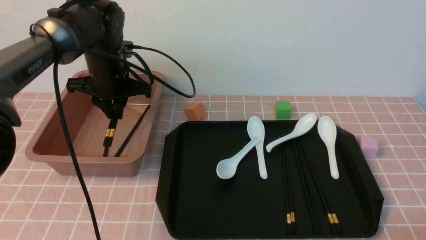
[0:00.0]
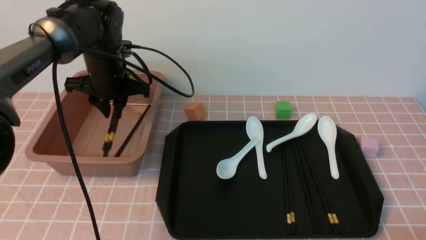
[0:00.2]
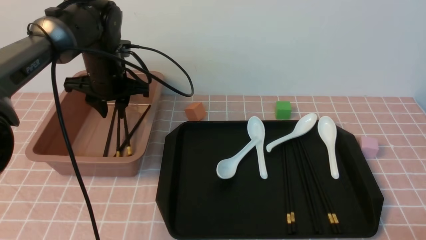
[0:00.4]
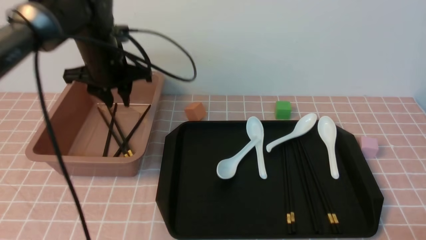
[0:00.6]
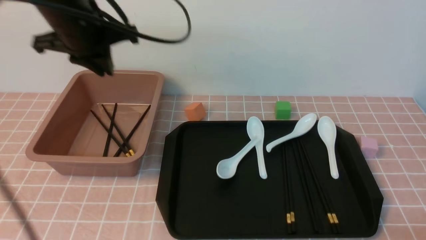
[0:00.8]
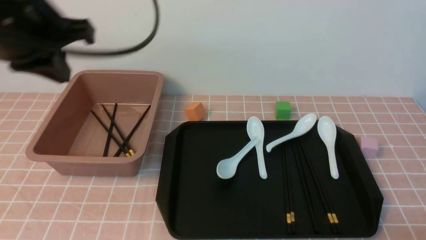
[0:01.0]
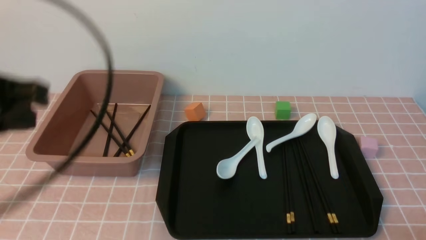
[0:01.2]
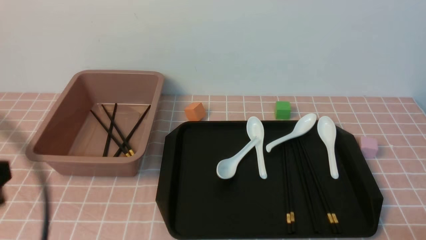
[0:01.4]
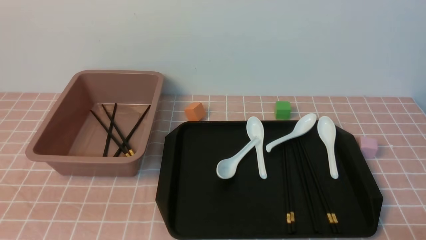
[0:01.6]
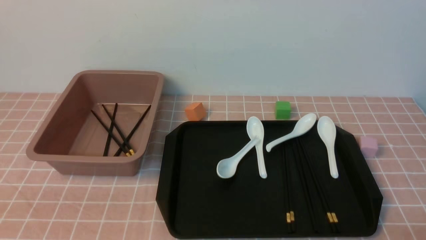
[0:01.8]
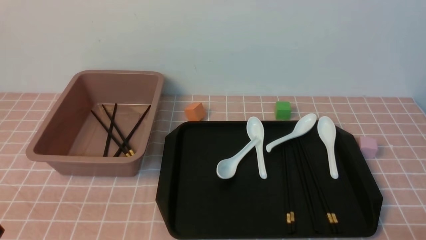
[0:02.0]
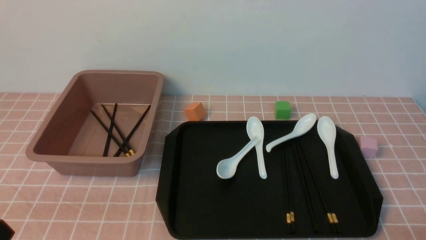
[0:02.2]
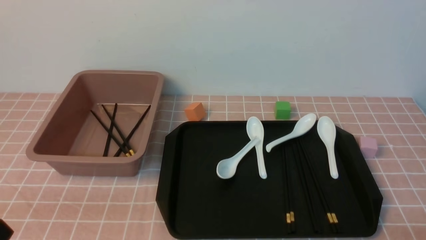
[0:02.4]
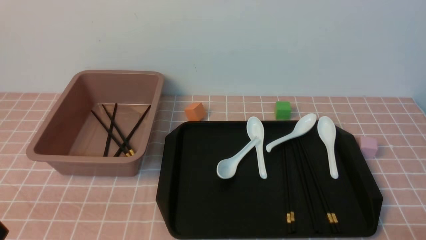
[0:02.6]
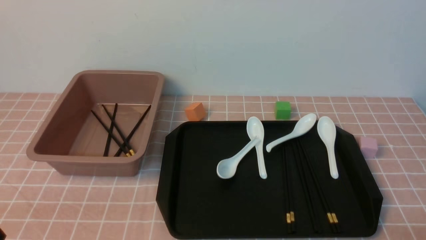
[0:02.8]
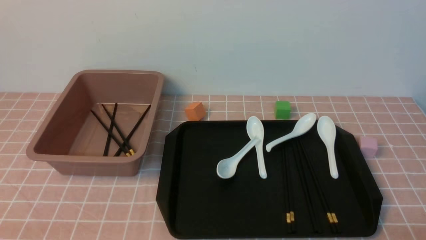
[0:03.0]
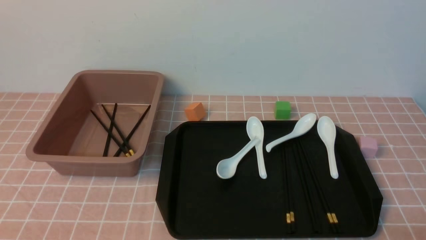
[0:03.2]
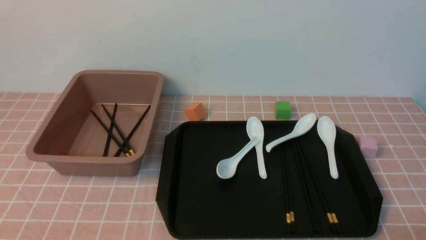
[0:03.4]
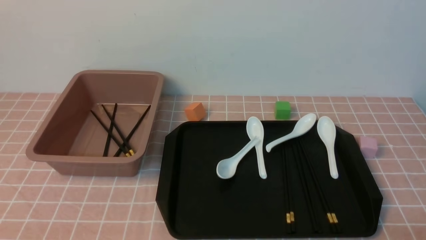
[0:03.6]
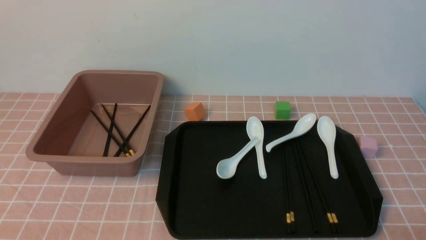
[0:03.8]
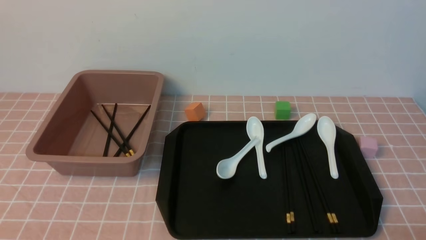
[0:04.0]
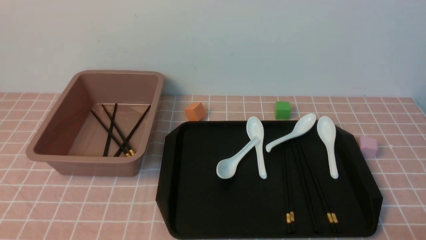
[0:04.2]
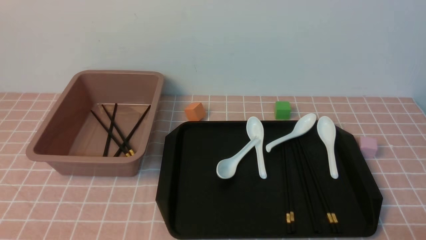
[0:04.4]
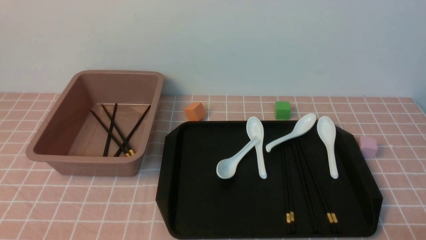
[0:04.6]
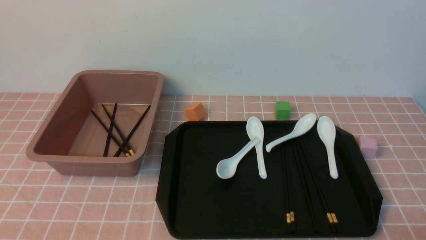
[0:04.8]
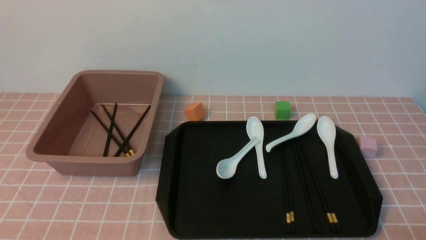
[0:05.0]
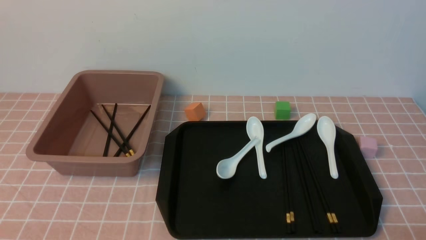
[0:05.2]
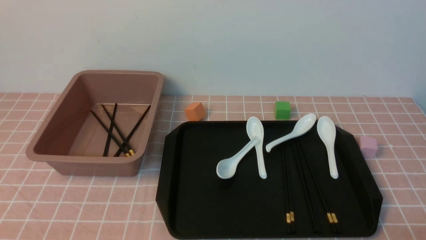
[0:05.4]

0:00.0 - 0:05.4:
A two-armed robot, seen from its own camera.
0:00.0 - 0:01.4: The left gripper heads backward, covering approximately 35 cm.
0:01.4 - 0:02.8: The left gripper travels downward by approximately 15 cm.
0:04.0 - 0:05.4: Neither gripper changes place.
